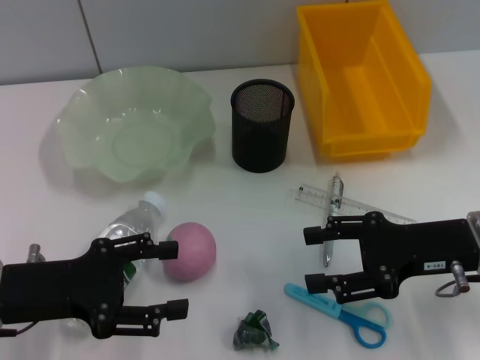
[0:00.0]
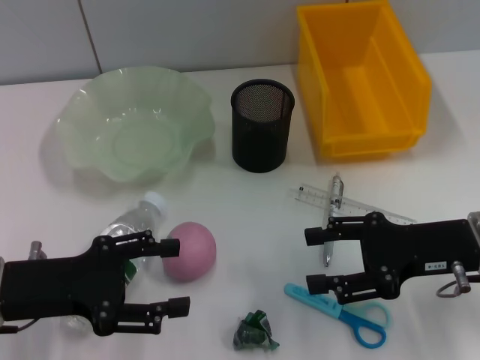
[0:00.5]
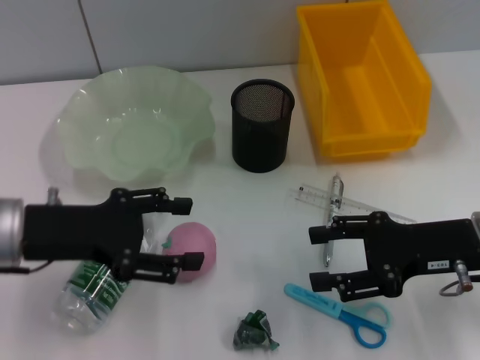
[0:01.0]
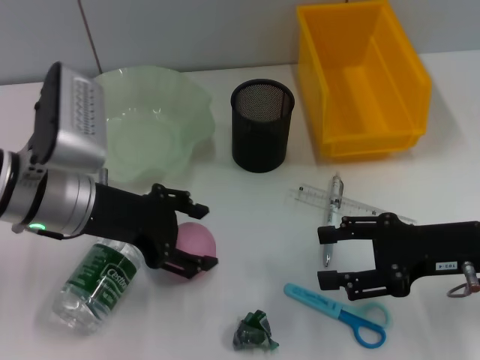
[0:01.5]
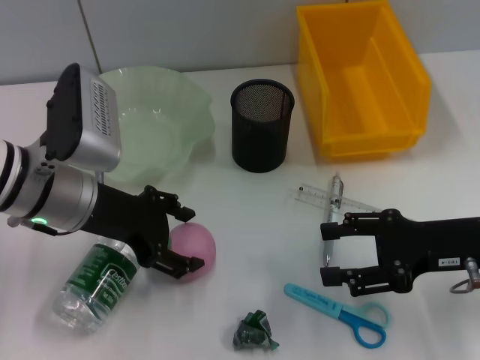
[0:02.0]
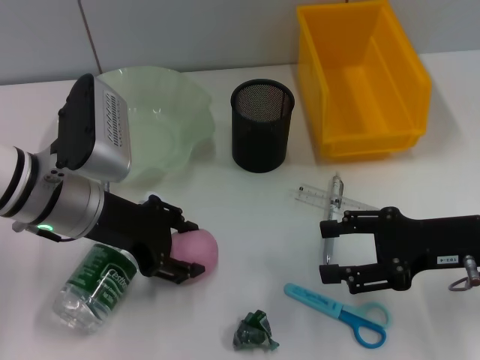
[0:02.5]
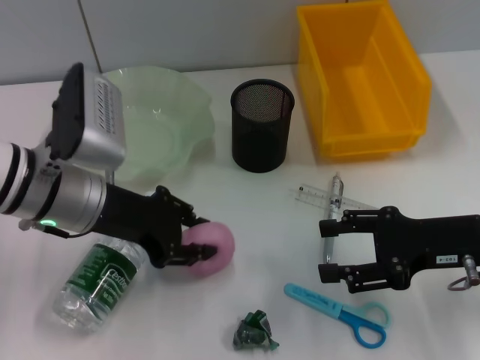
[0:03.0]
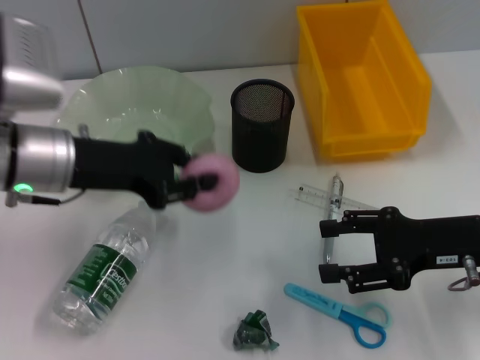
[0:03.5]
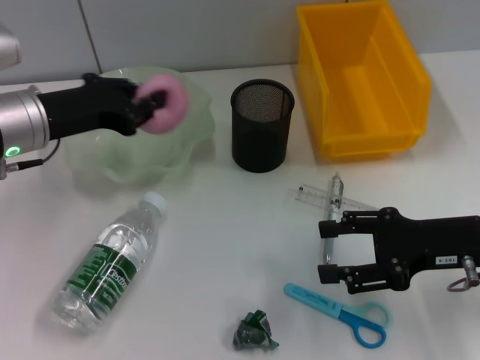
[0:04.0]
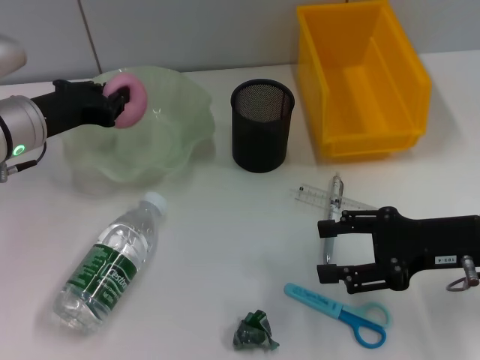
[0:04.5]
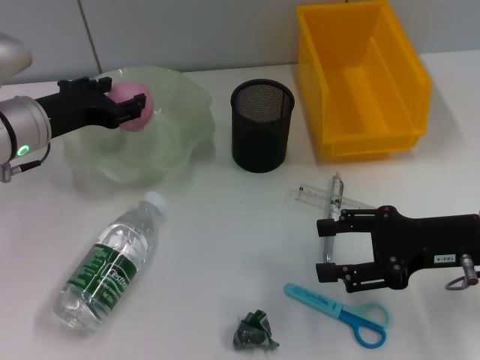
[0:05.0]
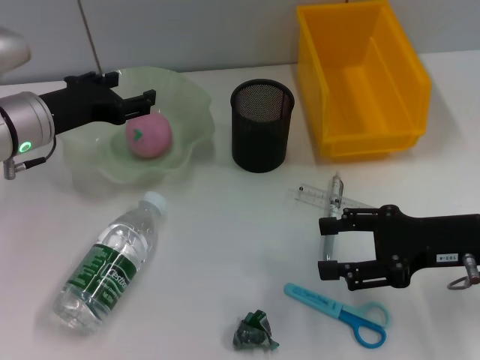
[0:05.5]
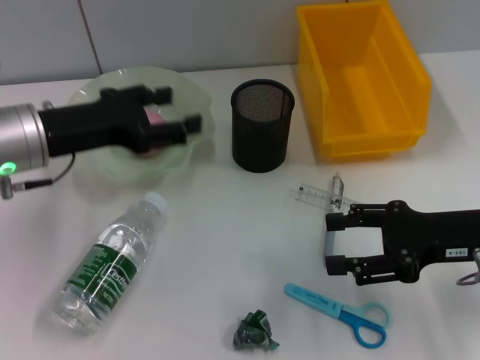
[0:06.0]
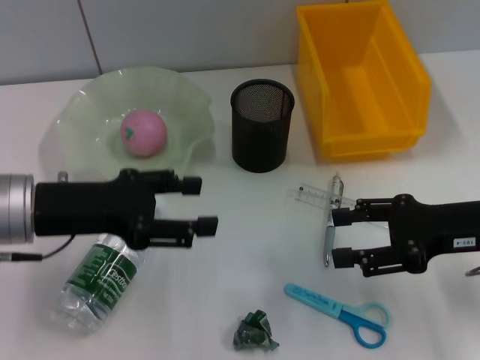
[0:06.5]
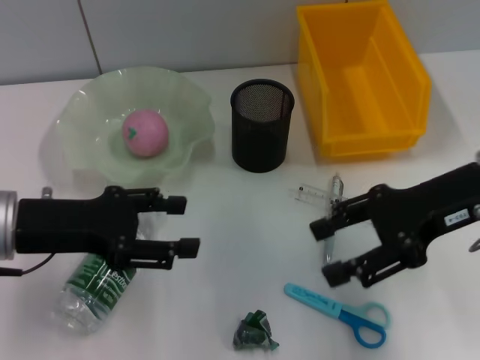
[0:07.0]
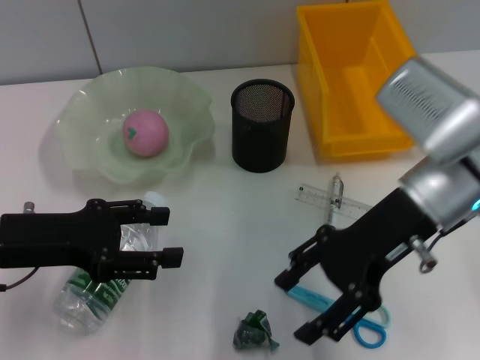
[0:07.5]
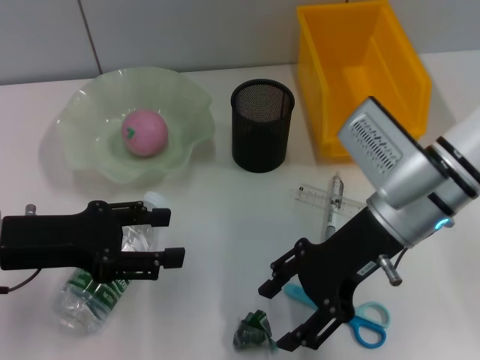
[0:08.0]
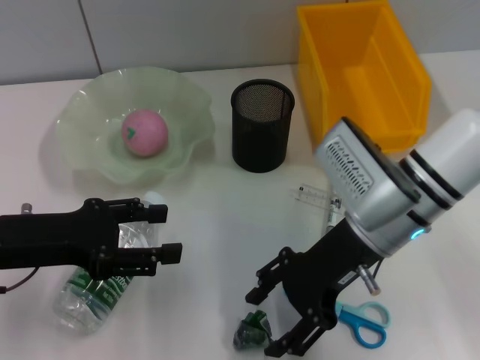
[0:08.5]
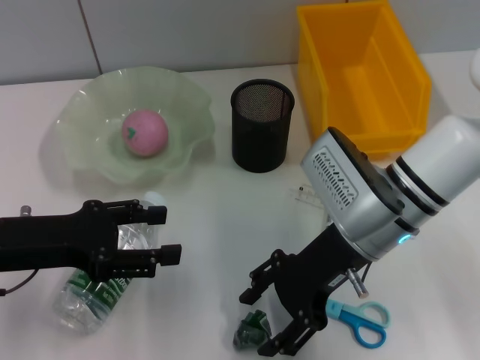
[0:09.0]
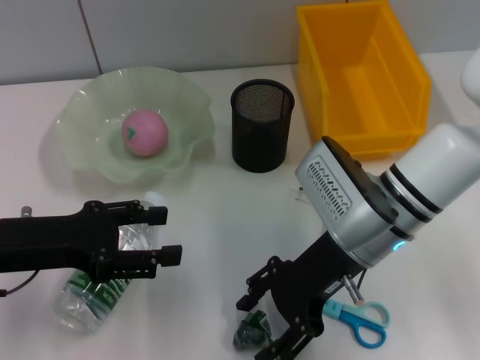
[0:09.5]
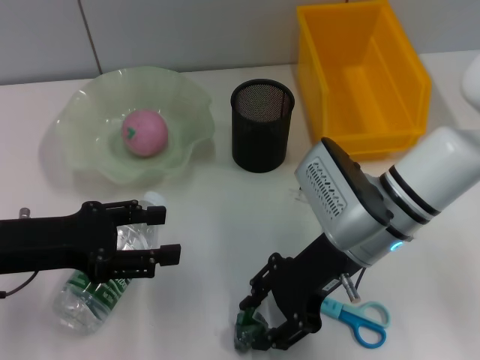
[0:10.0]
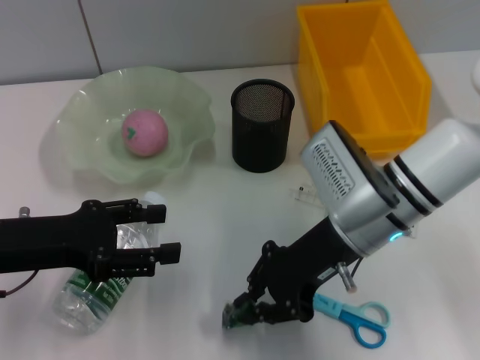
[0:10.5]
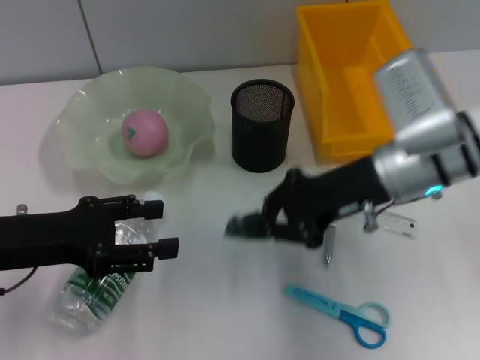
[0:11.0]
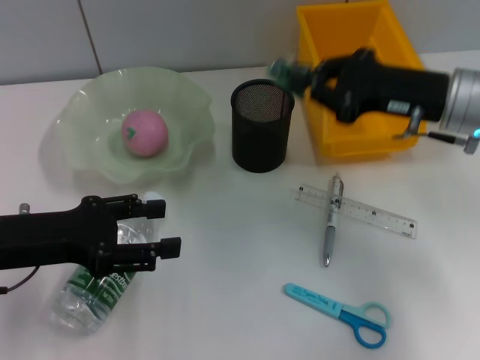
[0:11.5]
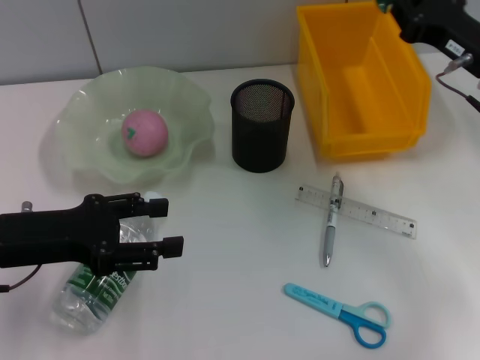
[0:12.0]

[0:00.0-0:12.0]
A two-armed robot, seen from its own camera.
Step, 0:00.0 to 0:02.5: Grab the peach with the left hand.
Step, 0:03.0 to 0:05.0: Place the peach into the fruit bowl with the left hand.
Step, 0:05.5 to 0:10.0: Grab the plastic with the right hand.
0:00.0 to 0:02.0: The left gripper heads forward and to the right, covering roughly 10 cm.
0:02.0 to 0:04.0: The left gripper moves approximately 5 cm, and closes.
0:04.0 to 0:06.0: The left gripper opens up.
0:06.0 to 0:08.0: The left gripper is displaced backward by about 5 cm. Meanwhile the right gripper goes approximately 10 cm to the left.
0:08.0 to 0:10.0: There are only small adjustments of the grippers.
0:10.0 to 0:12.0: The right gripper travels to the right by roughly 15 cm, and closes.

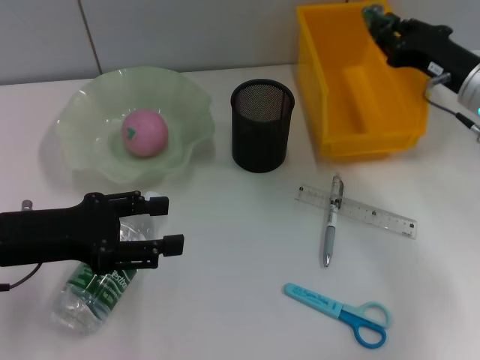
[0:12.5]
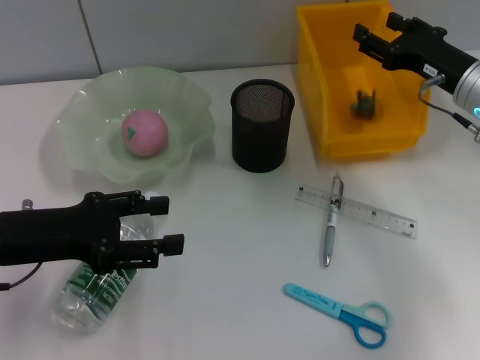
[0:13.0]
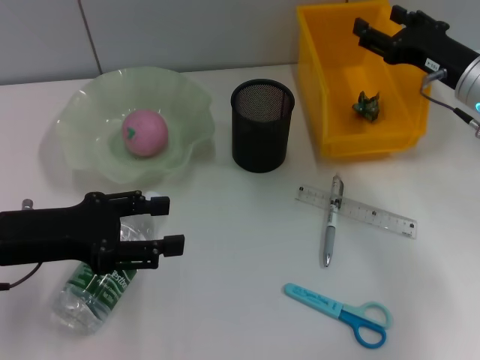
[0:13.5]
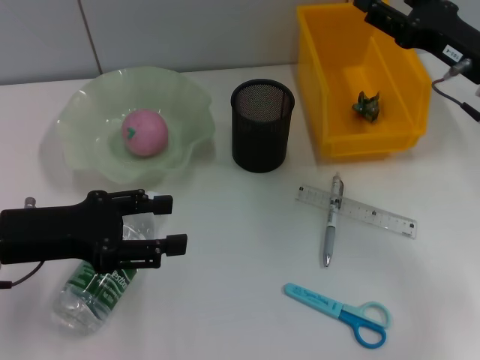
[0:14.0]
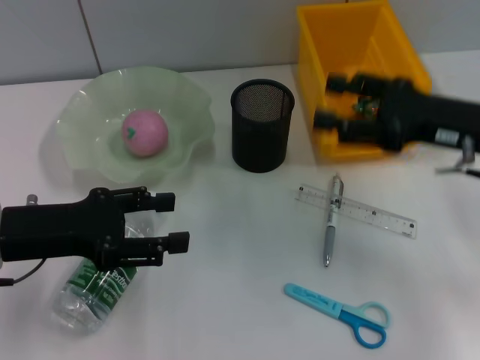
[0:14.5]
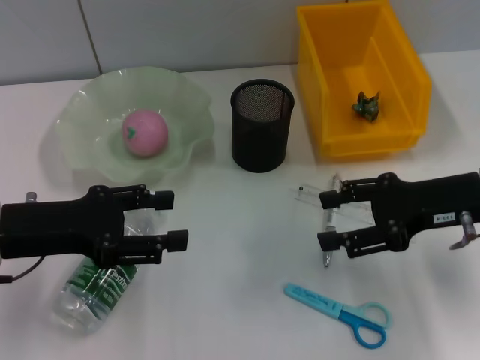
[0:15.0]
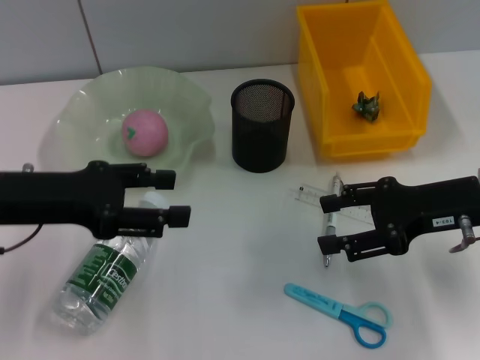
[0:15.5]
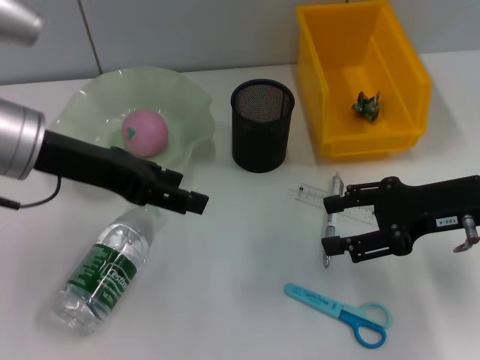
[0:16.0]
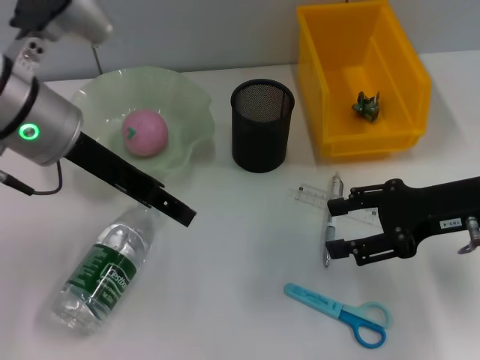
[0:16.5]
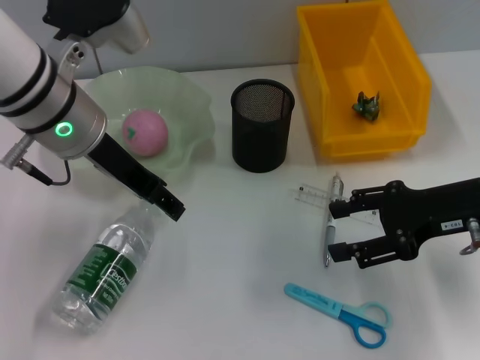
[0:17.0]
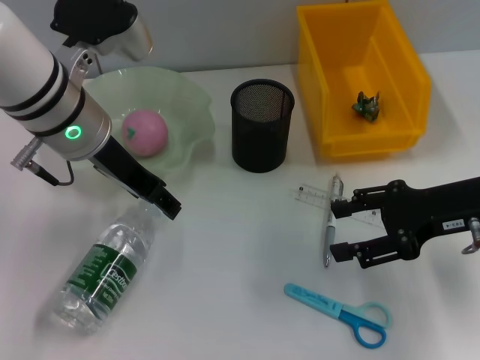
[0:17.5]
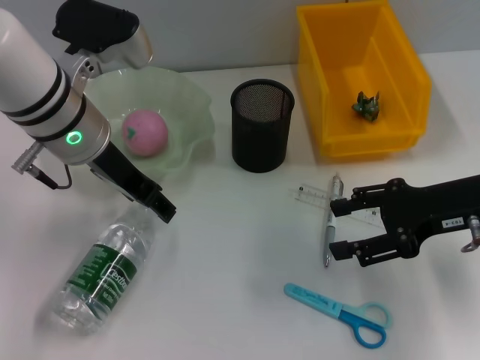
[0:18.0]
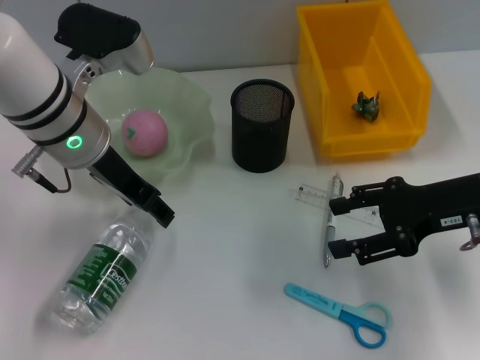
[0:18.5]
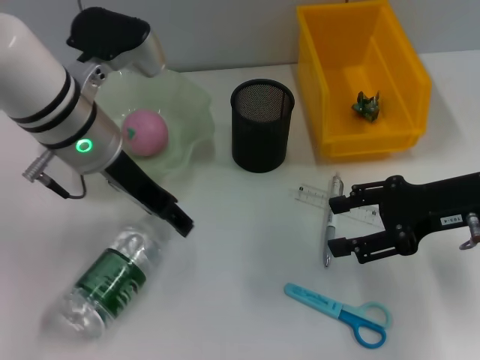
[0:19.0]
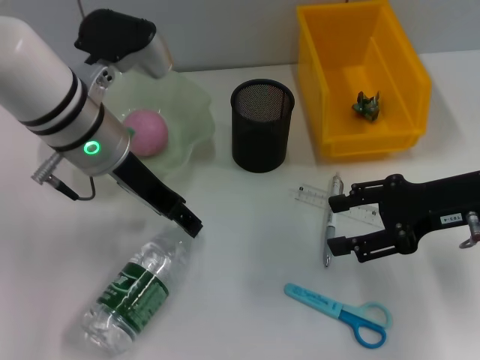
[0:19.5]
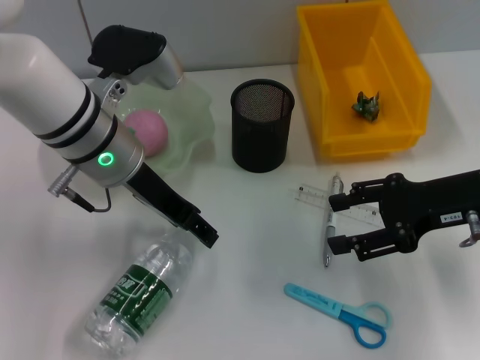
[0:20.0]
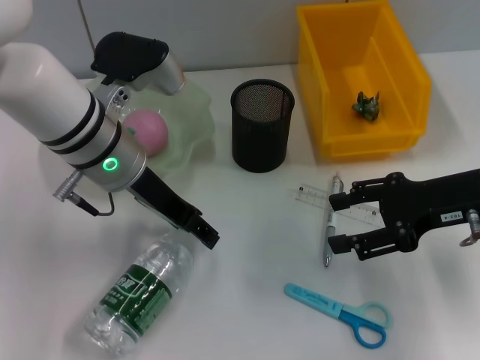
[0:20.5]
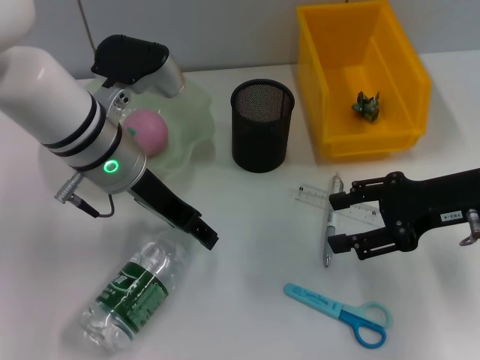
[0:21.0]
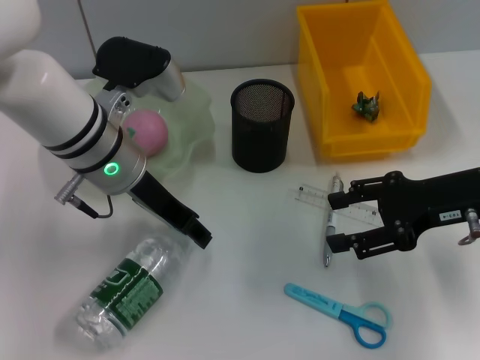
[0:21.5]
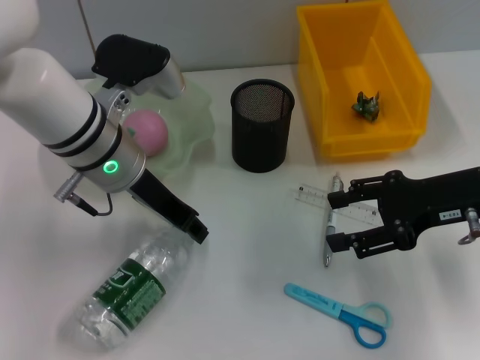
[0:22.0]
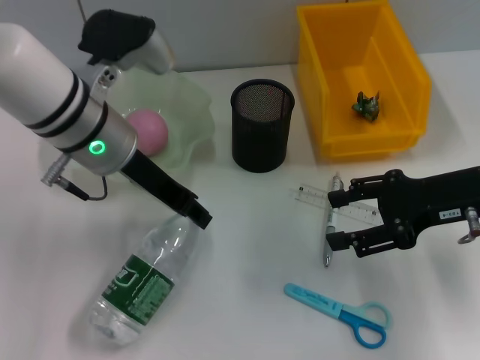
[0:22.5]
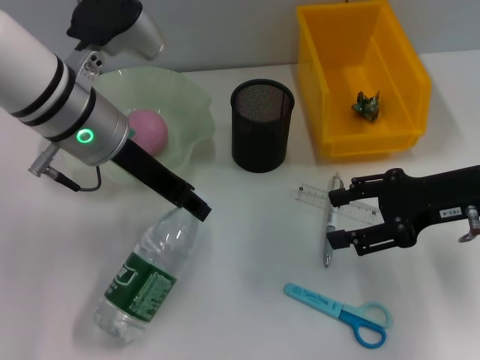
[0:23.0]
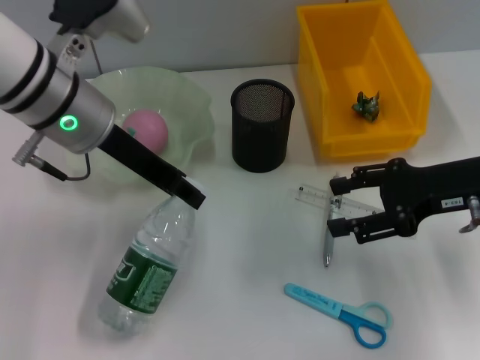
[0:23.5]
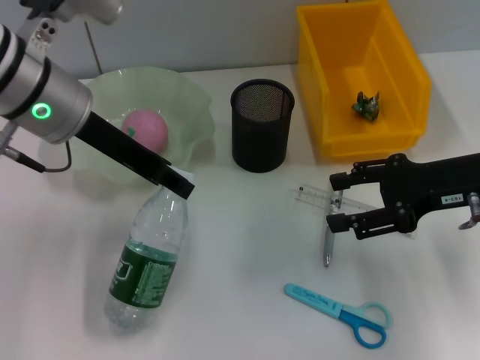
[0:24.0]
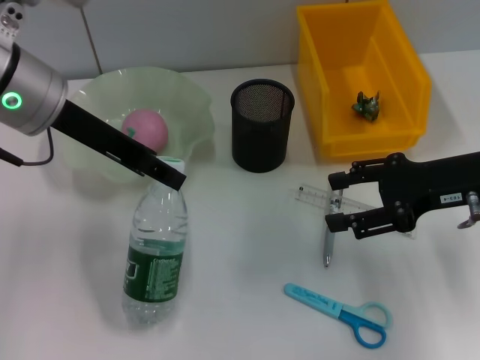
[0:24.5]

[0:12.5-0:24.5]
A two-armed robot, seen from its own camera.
Step, 0:13.5 to 0:21.5: Grab the water bottle with the left hand.
0:12.5 to 0:14.5: The right gripper heads backward, covering roughly 5 cm, and opens its fingers.
0:14.5 to 0:16.5: The left gripper travels upward, to the right and forward by approximately 15 cm.
0:16.5 to 0:18.5: There are only small adjustments of the grippers.
0:18.5 to 0:20.5: There are only small adjustments of the grippers.
0:20.5 to 0:22.5: The left gripper closes its fingers.
0:22.5 to 0:24.5: The left gripper goes roughly 5 cm upward.

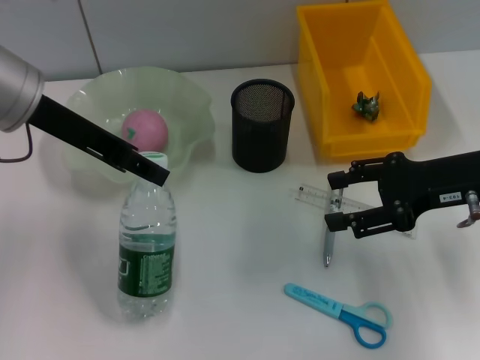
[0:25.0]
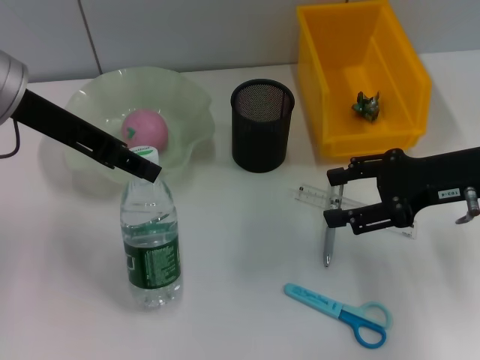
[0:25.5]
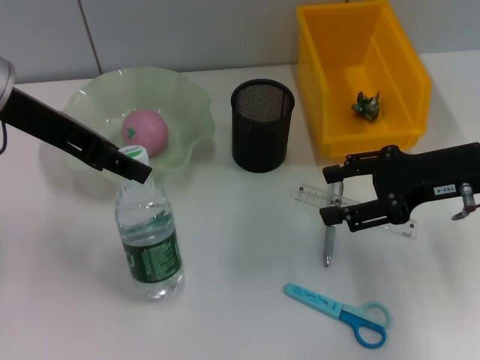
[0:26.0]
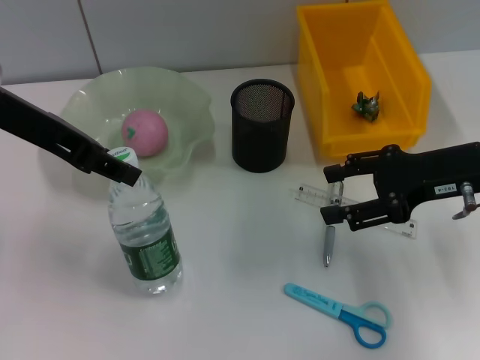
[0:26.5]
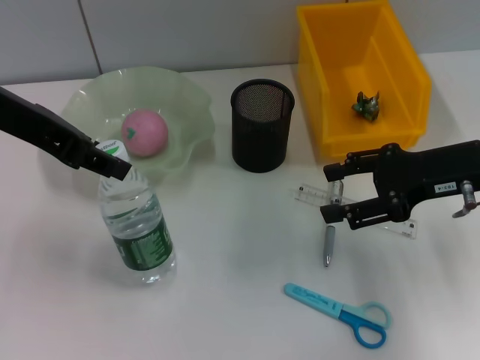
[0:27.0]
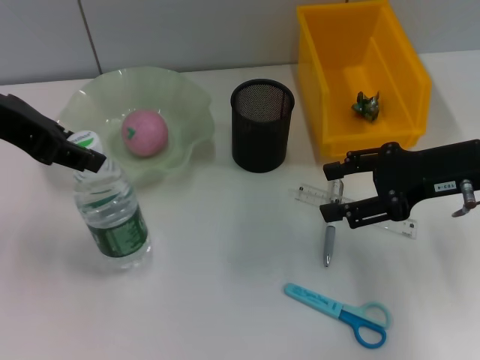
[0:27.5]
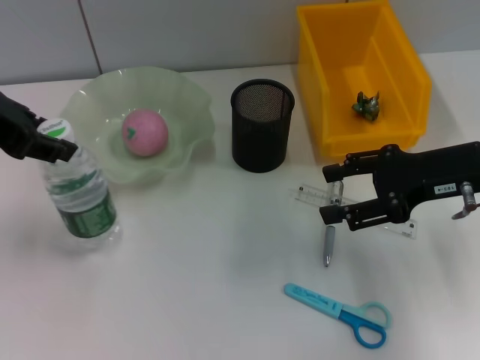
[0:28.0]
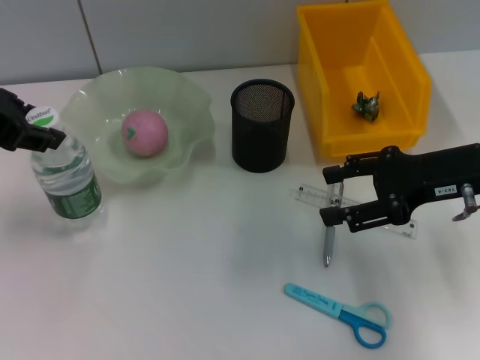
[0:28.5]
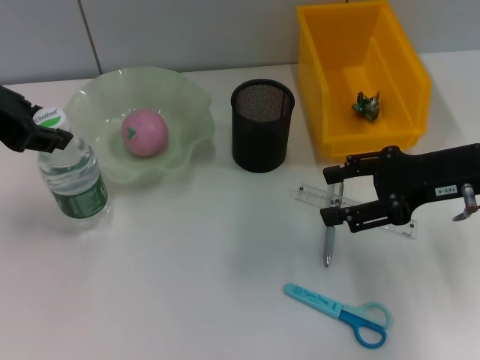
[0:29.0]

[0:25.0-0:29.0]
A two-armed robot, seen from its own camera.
0:25.0 to 0:27.0: The grippers stay close to where they were, moving slightly.
0:27.0 to 0:29.0: The grippers stay close to where they were, moving slightly.
